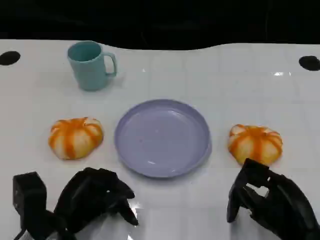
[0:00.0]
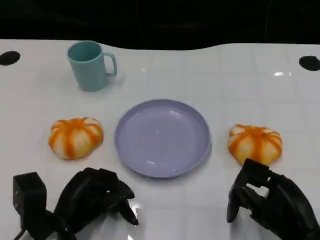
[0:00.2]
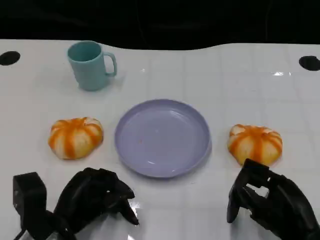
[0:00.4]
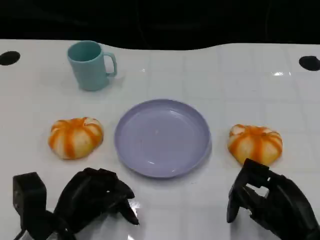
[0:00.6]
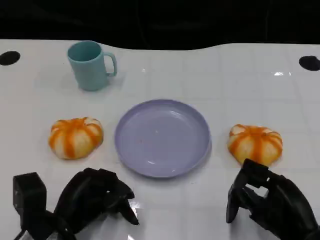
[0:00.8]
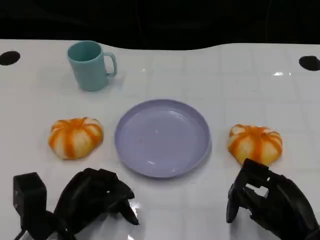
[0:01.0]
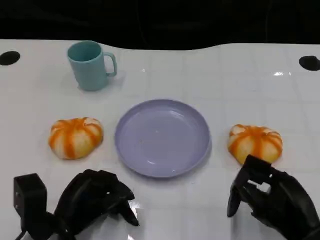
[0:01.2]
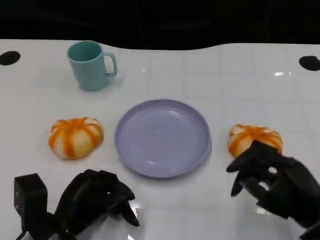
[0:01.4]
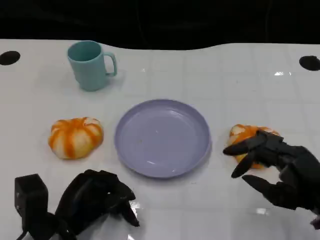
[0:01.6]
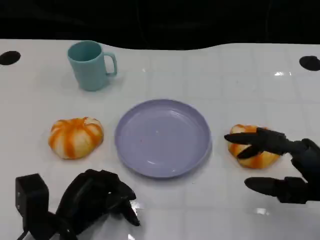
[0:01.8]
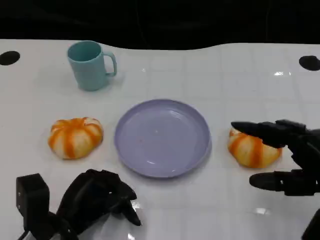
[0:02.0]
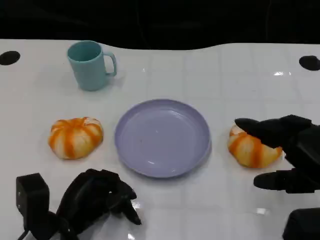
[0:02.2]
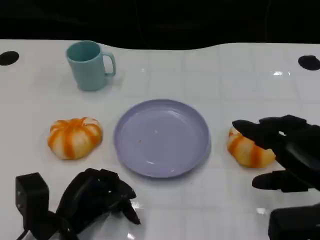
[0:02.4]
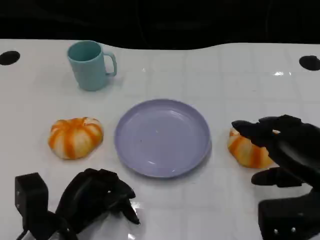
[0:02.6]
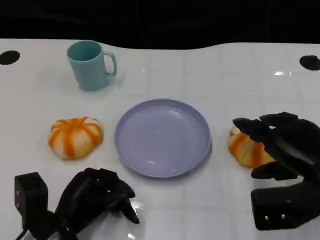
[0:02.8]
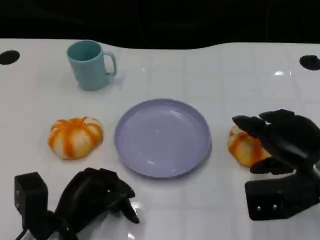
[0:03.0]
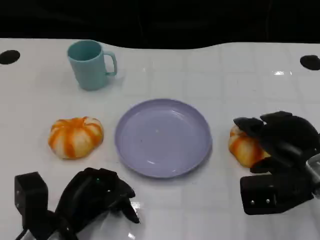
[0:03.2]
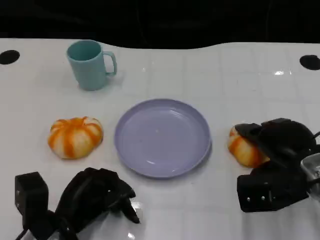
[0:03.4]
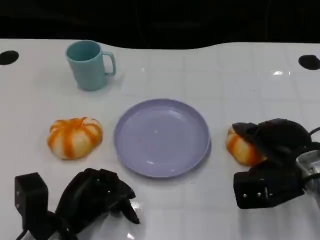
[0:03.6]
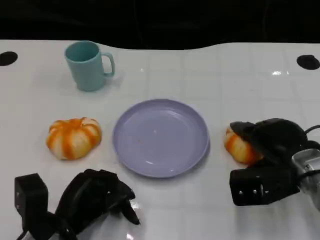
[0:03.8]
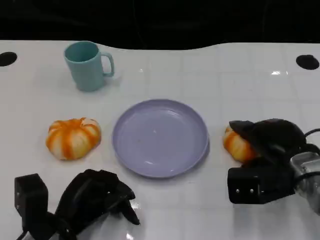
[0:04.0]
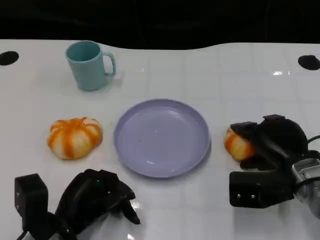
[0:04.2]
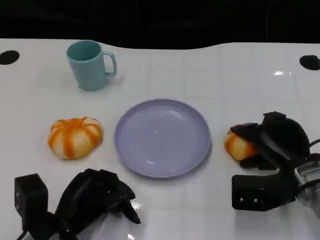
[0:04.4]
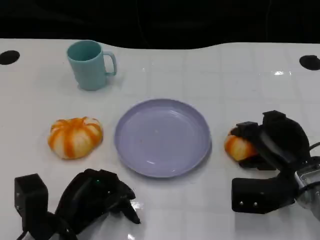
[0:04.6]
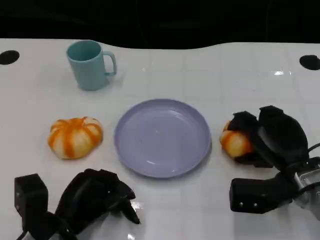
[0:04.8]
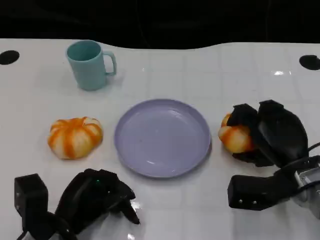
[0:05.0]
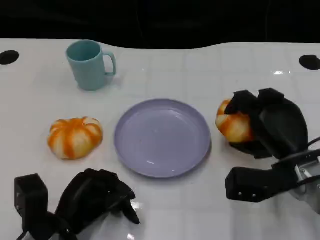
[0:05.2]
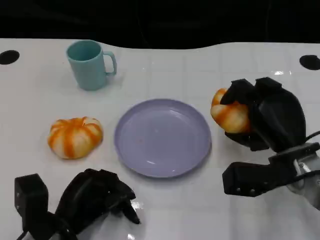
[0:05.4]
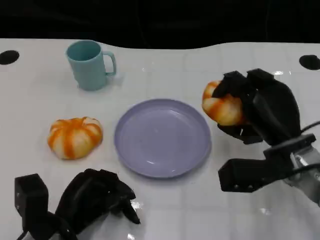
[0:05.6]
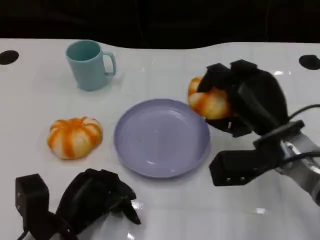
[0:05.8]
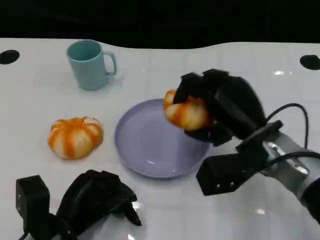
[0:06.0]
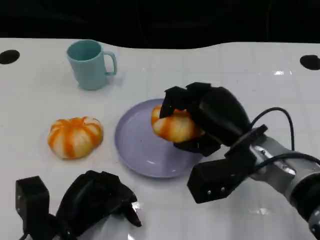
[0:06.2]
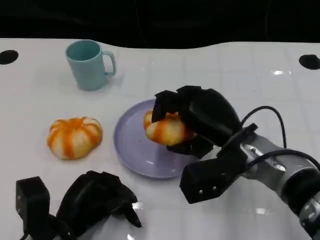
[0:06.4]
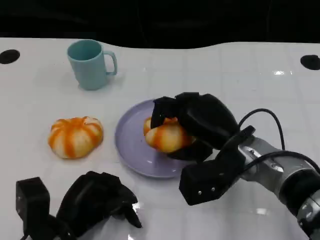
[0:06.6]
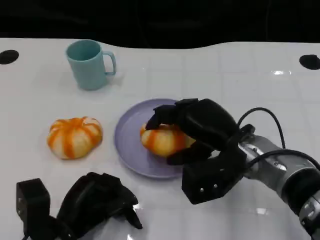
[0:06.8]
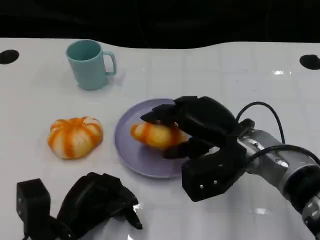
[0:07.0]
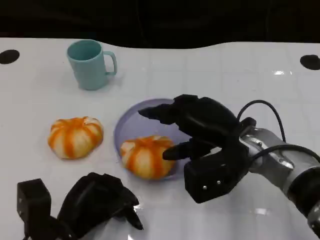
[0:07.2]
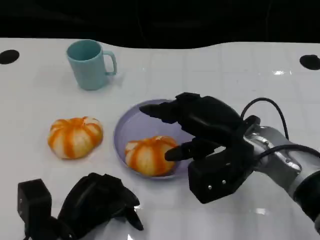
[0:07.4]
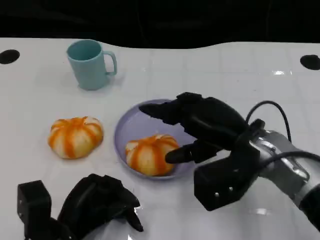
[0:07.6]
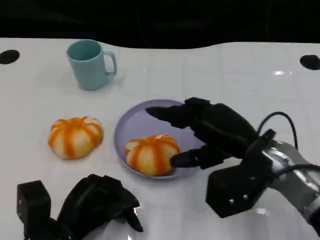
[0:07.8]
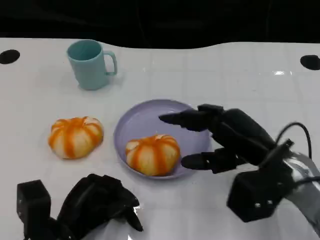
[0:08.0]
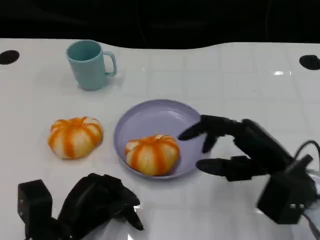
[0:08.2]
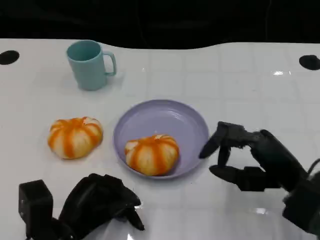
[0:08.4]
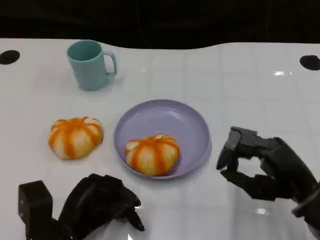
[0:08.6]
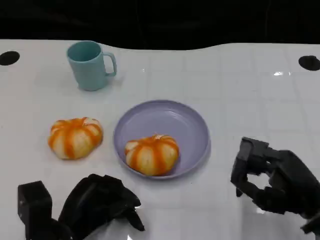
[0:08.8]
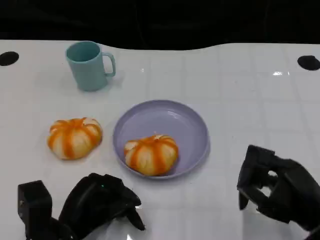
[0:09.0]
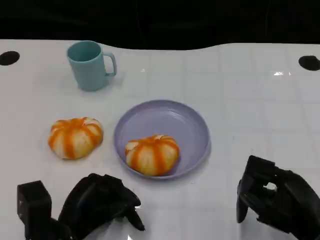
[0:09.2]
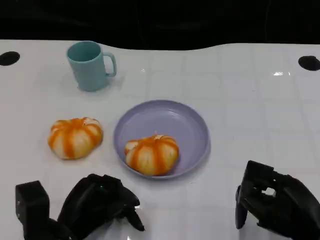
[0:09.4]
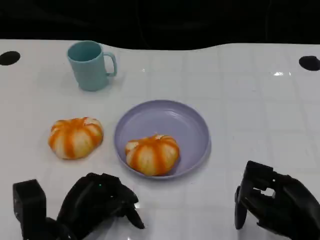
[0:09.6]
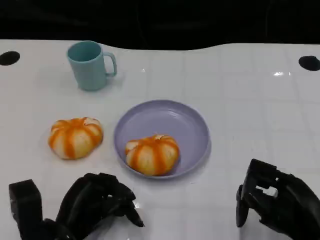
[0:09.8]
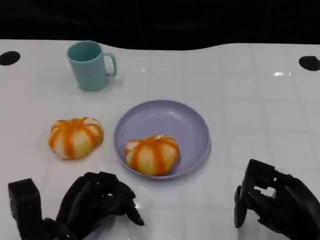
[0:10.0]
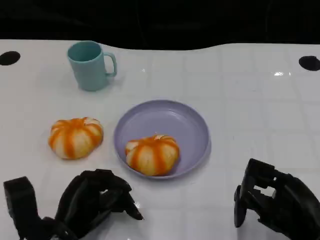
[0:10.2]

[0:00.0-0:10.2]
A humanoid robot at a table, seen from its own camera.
Task of the whole recording: Grasp the bread from the table and place it into the plate.
0:01.4 to 0:03.0: The right hand travels forward by about 5 cm.
0:03.0 to 0:04.4: The right hand shifts some 5 cm downward.
0:04.4 to 0:05.8: The right hand is displaced upward by some 5 cm.
0:07.2 to 0:08.8: The right hand shifts approximately 15 cm to the right and backward.

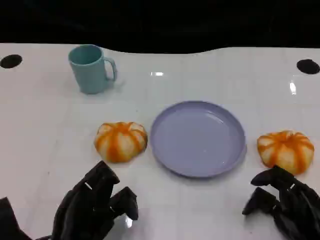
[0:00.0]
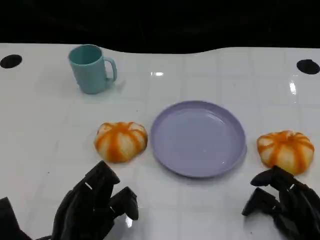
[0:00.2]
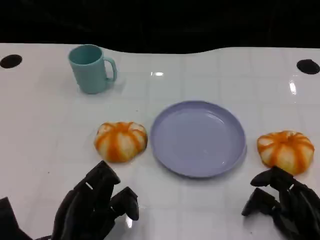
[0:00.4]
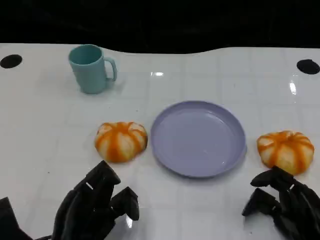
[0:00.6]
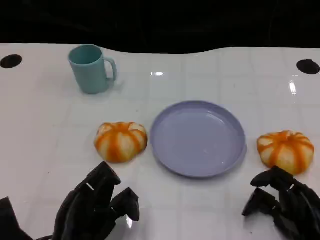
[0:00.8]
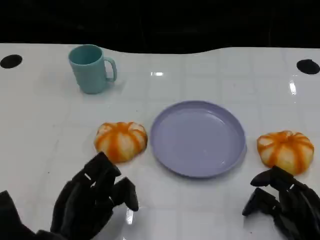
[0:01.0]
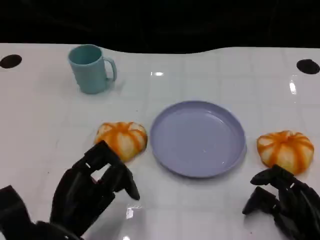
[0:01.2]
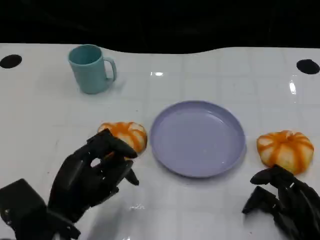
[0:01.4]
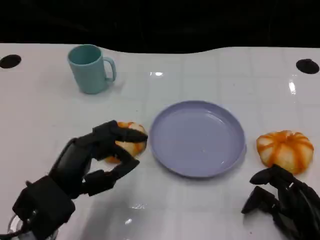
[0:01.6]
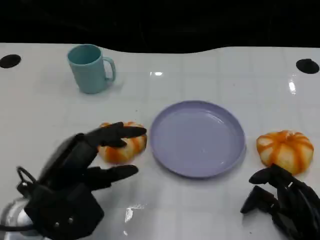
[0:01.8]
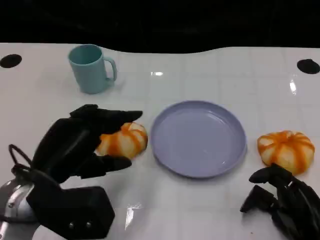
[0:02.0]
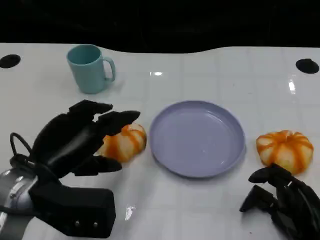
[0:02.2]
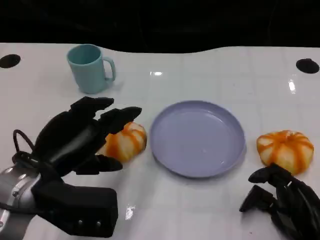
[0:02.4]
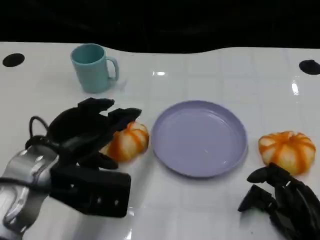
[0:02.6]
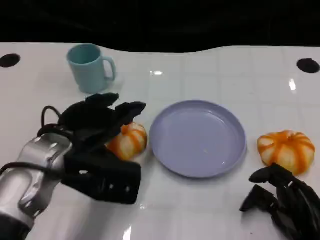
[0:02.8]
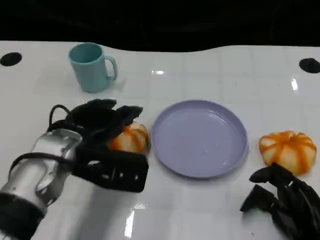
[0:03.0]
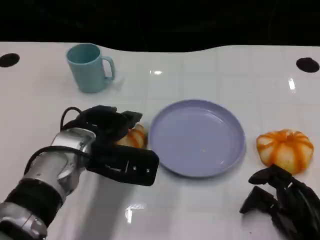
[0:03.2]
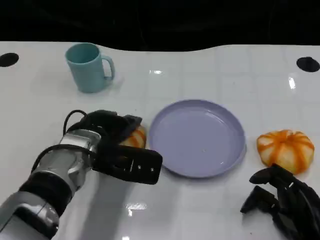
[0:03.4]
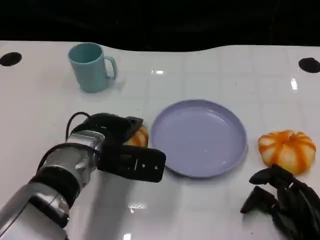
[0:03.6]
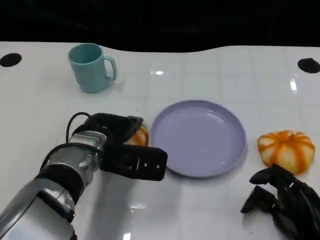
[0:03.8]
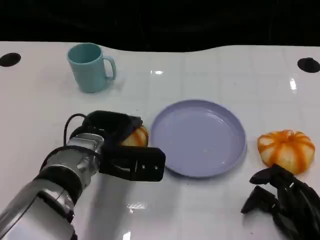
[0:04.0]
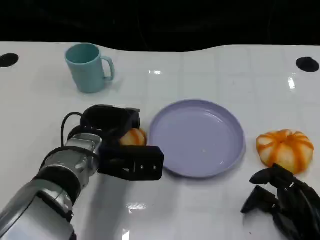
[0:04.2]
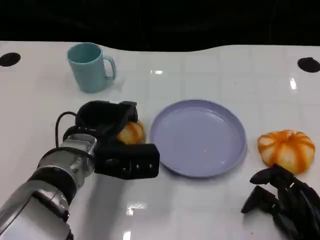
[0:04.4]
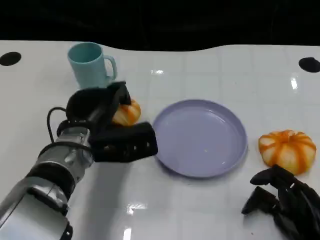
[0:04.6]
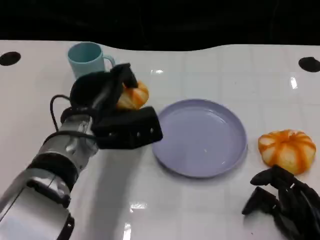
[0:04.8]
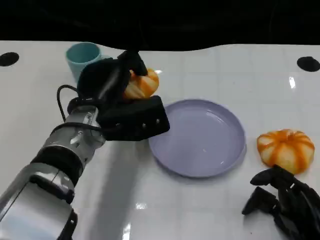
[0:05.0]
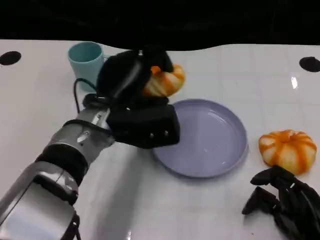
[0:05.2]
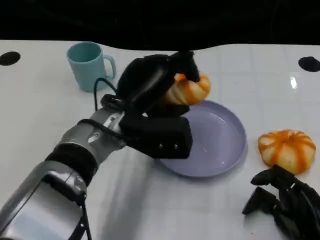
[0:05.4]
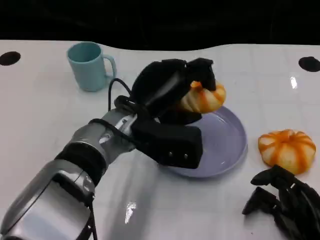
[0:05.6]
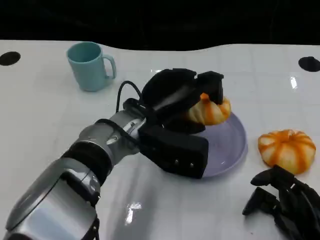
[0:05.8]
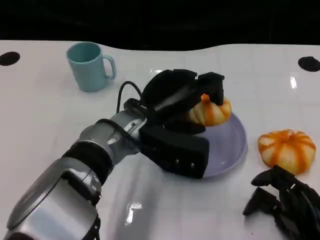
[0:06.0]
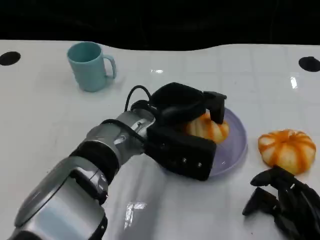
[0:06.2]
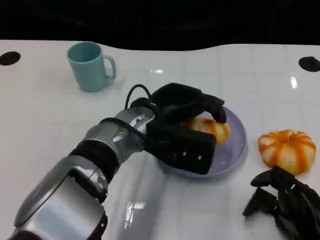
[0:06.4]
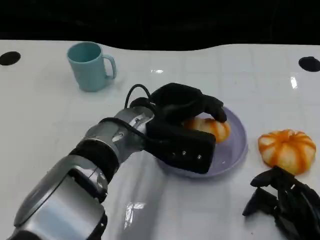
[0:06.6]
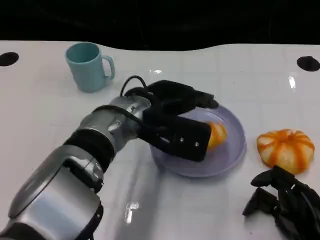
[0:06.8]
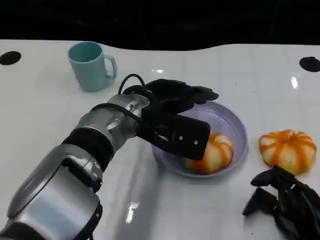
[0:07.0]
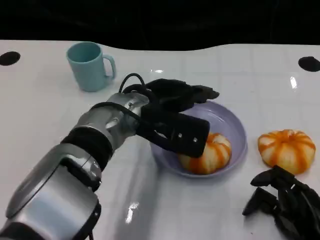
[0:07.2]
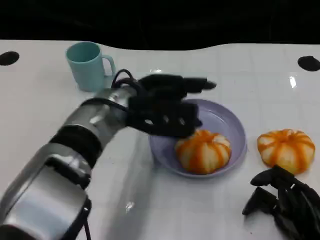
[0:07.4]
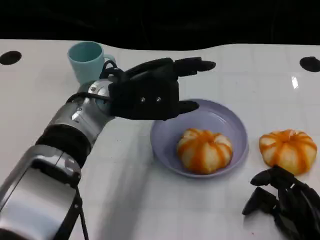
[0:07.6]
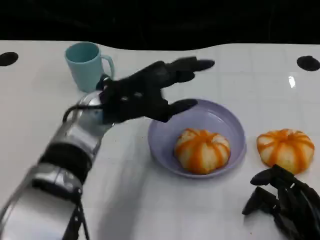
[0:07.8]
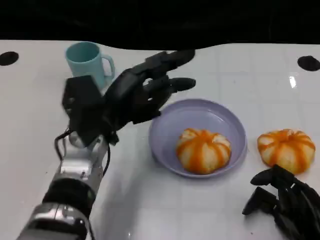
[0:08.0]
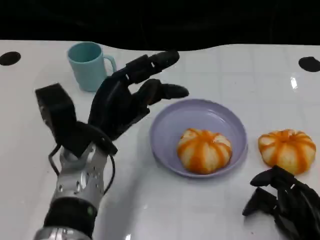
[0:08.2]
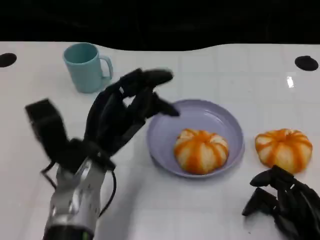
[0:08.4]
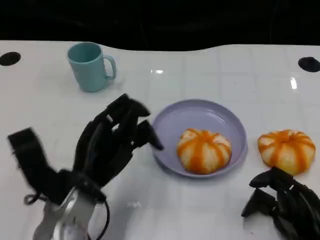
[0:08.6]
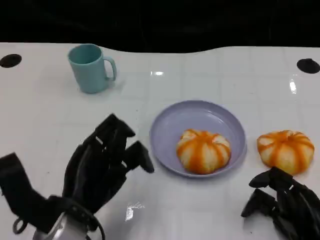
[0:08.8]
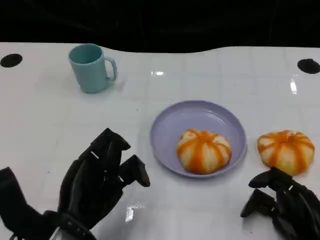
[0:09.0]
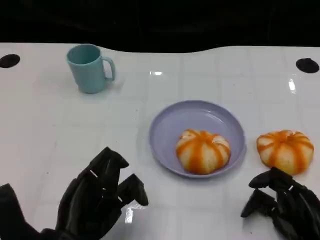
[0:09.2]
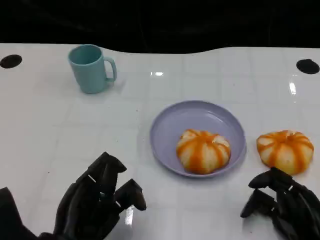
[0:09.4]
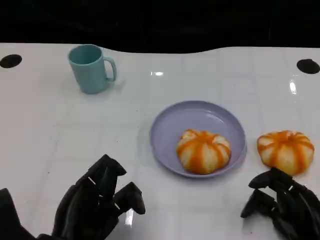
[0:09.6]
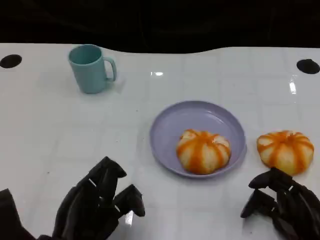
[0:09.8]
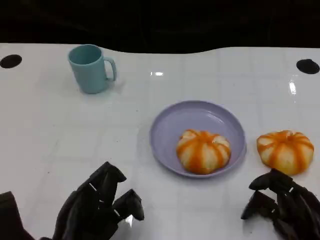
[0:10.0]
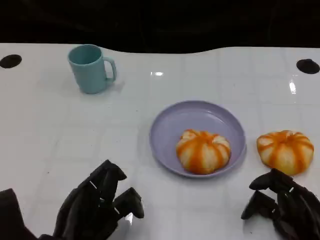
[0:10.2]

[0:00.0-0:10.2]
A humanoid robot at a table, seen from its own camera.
Task of the whole recording: Grasp the bread from the table and place it into the plate.
0:01.4 to 0:03.0: The left hand moves forward, some 10 cm.
0:03.0 to 0:04.4: The hands make only small movements.
0:04.4 to 0:05.8: The left hand shifts some 10 cm to the right.
0:07.2 to 0:08.8: The left hand heads backward, to the left and downward, covering about 20 cm.
0:08.8 to 0:10.2: There are only small adjustments of the hands.

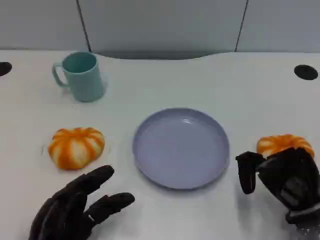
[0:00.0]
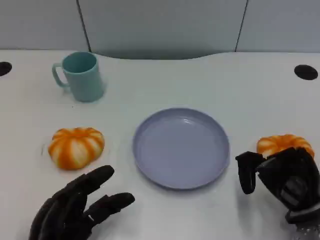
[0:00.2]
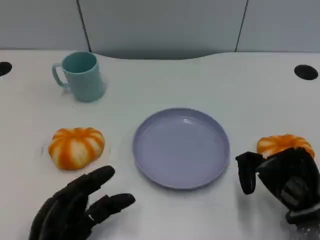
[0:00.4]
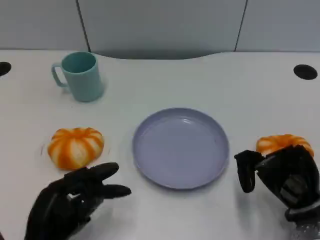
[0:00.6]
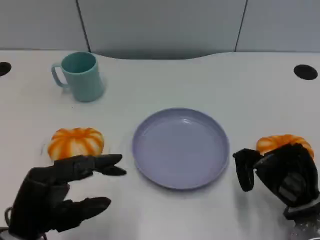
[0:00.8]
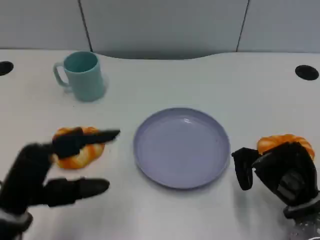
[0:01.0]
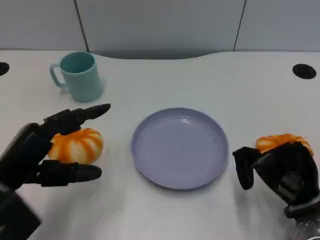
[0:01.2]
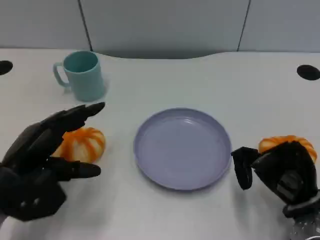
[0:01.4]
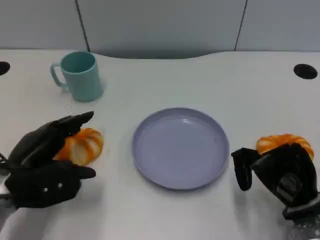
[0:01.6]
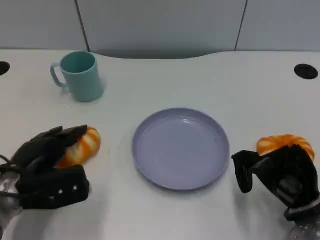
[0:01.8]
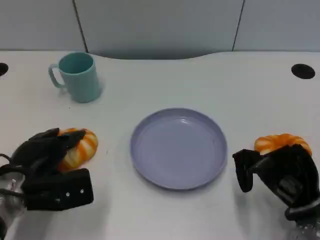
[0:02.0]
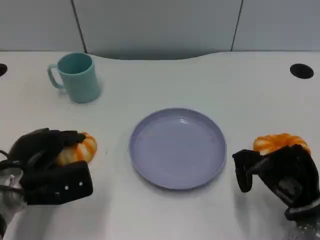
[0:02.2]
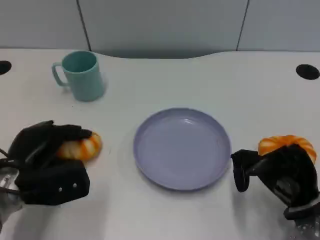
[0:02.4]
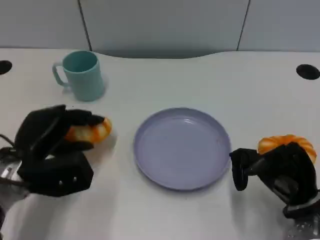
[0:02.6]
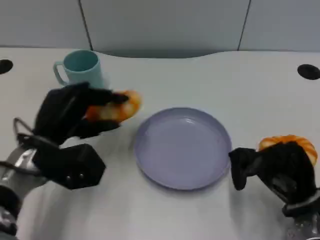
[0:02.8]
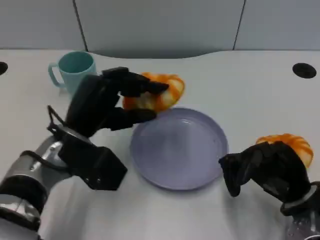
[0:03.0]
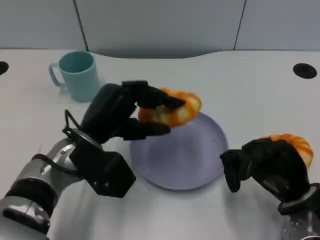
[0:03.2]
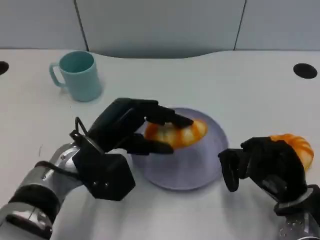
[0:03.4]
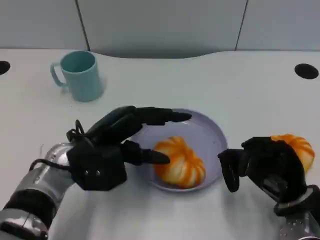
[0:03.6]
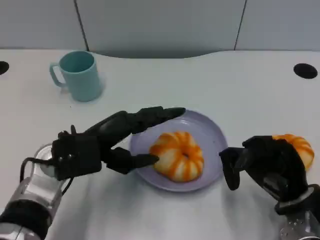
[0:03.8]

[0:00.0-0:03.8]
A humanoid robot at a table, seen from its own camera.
Task of the whole recording: Grasp the bread from the table and place it into the plate.
0:00.0 to 0:01.2: The left hand moves upward and forward, approximately 10 cm.
0:01.2 to 0:02.6: The left hand moves forward, some 5 cm.
0:02.6 to 0:03.8: The left hand goes approximately 5 cm to the right.
